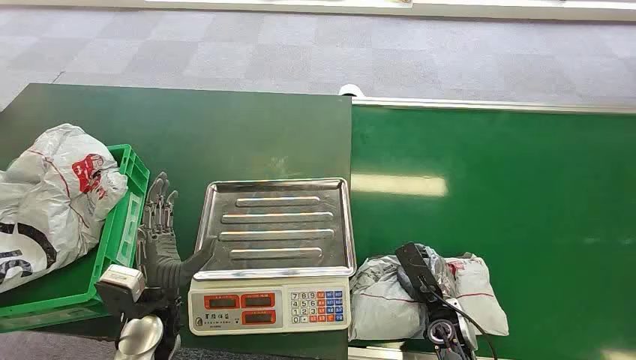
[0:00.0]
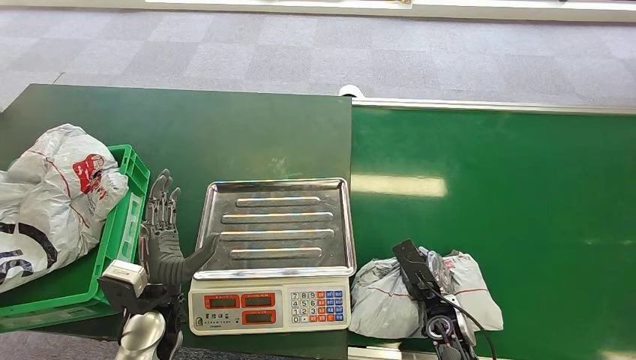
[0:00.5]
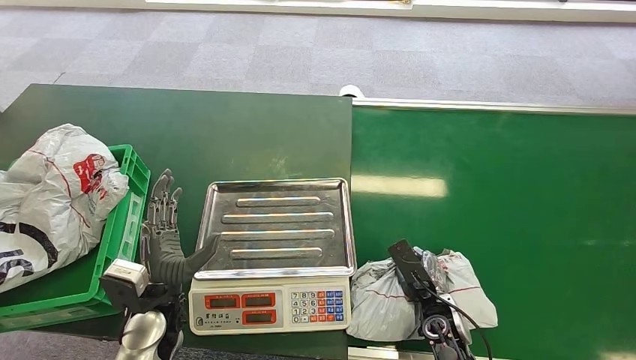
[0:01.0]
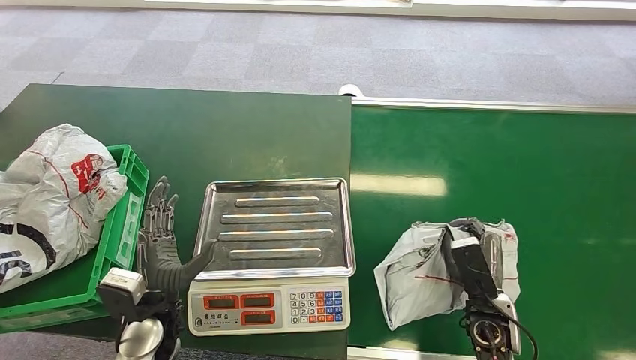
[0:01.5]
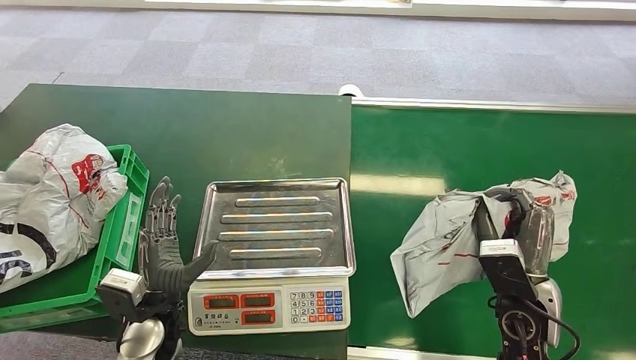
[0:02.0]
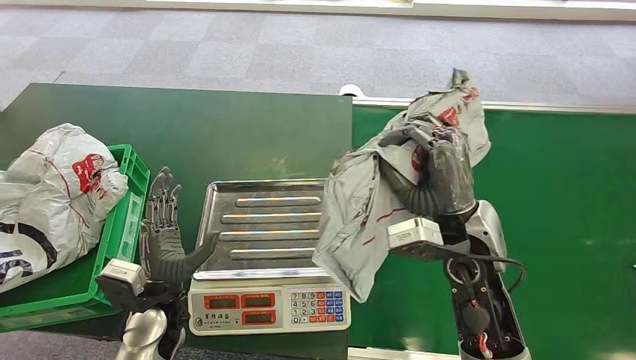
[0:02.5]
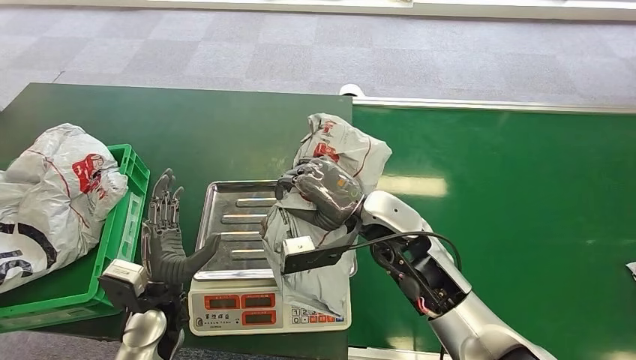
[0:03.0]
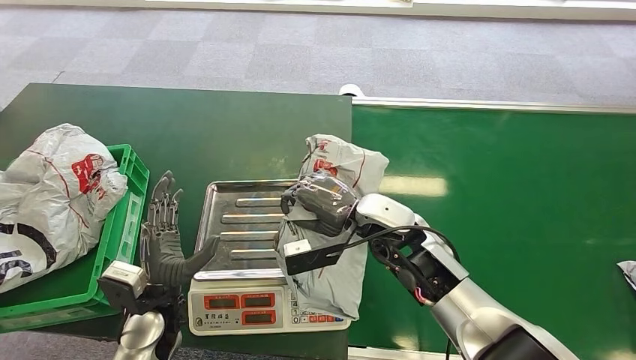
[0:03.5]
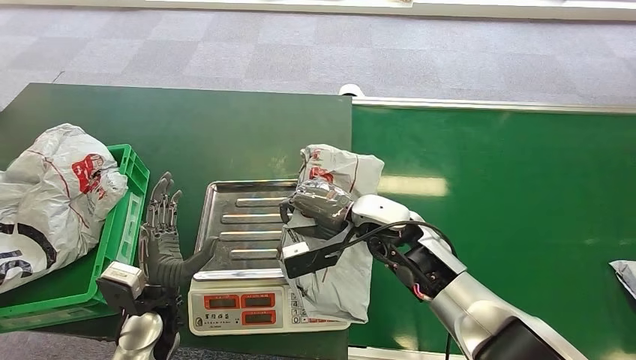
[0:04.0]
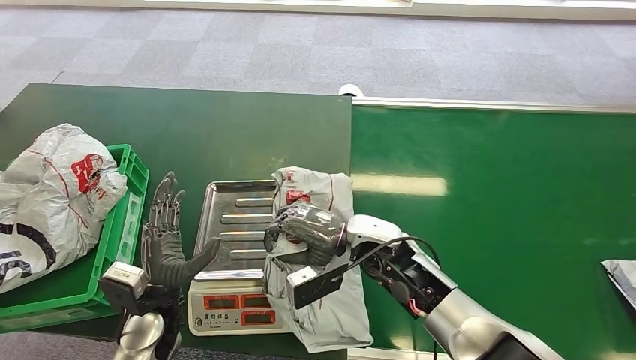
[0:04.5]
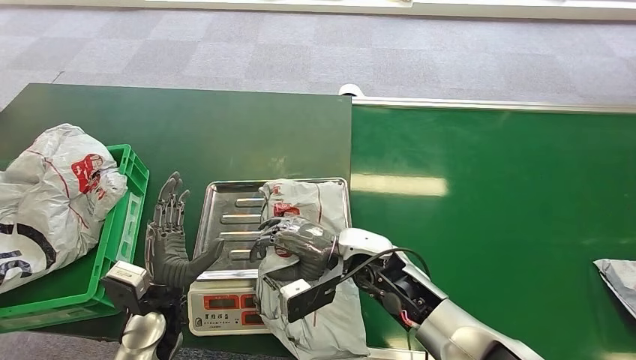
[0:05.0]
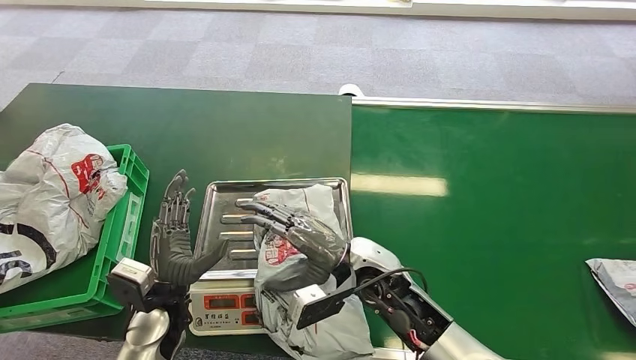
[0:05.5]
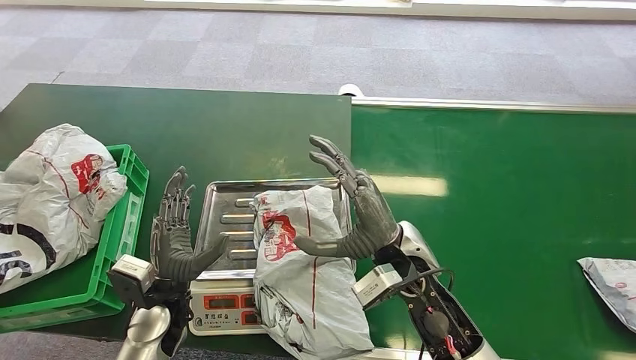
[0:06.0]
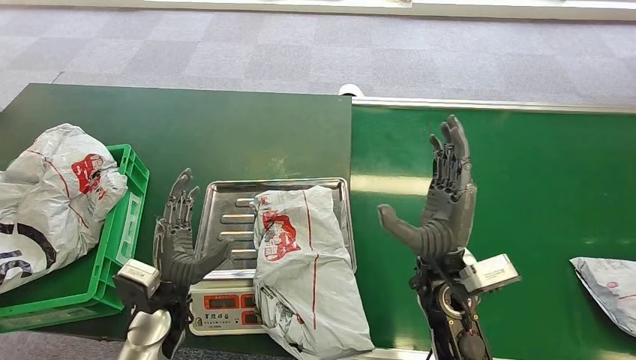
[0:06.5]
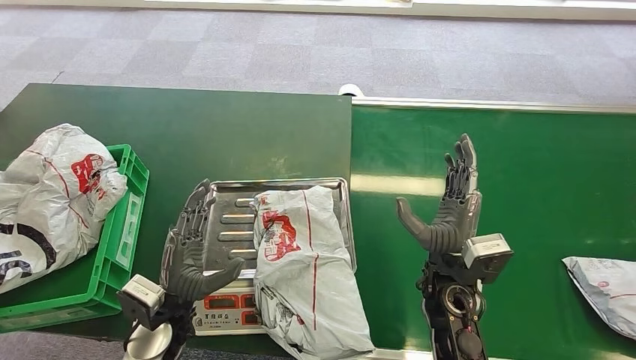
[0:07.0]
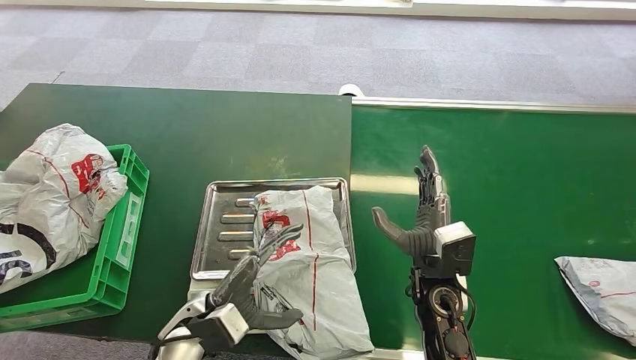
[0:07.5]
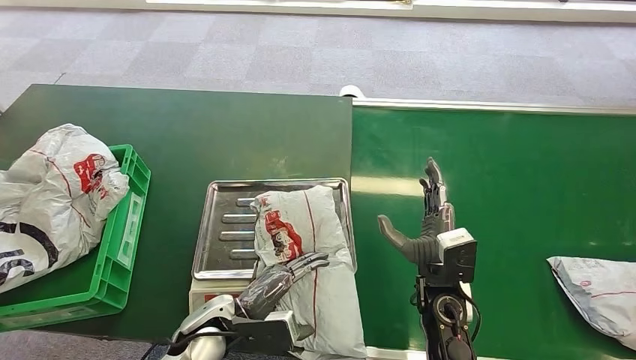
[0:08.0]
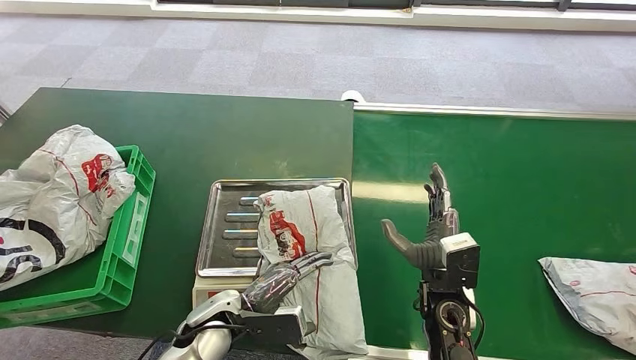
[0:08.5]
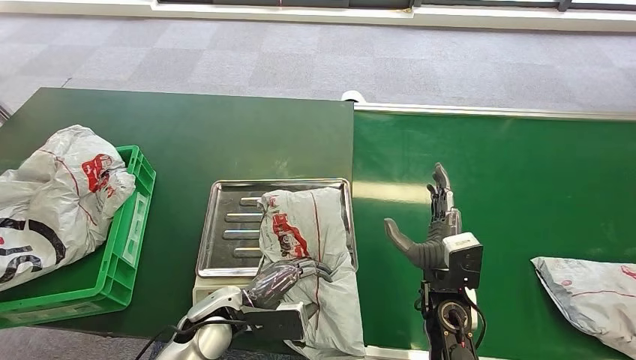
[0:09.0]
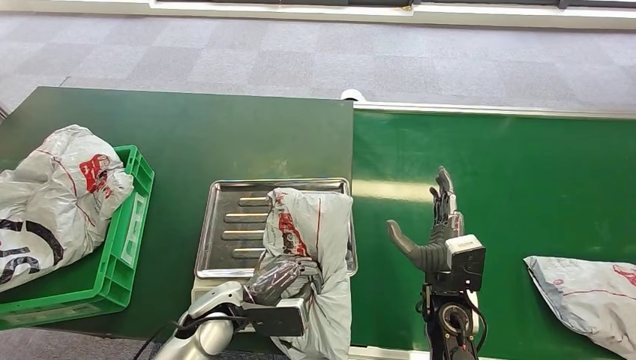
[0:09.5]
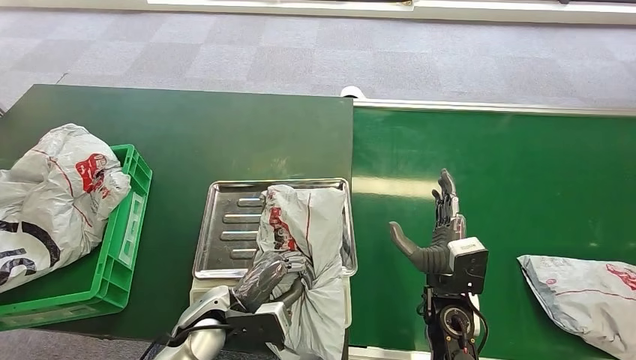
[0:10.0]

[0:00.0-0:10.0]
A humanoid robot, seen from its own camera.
Step, 0:00.0 to 0:01.5: Pick up the package from the conveyor belt.
Step, 0:02.5 to 0:04.5: Place the package onto the inbound machine.
0:02.0 to 0:04.0: The right hand goes approximately 20 cm to the left and forward.
0:04.0 to 0:06.0: The right hand is displaced backward by roughly 5 cm.
0:08.0 to 0:10.0: The hands stay close to where they were, moving slightly.

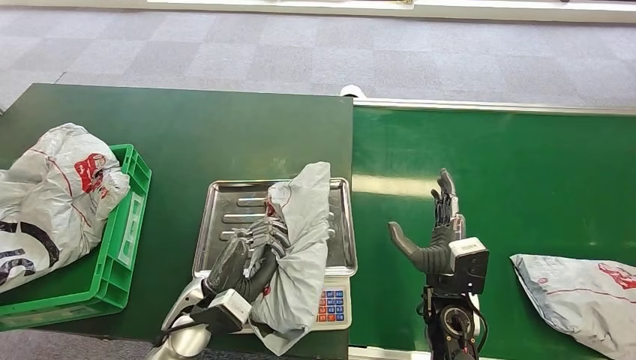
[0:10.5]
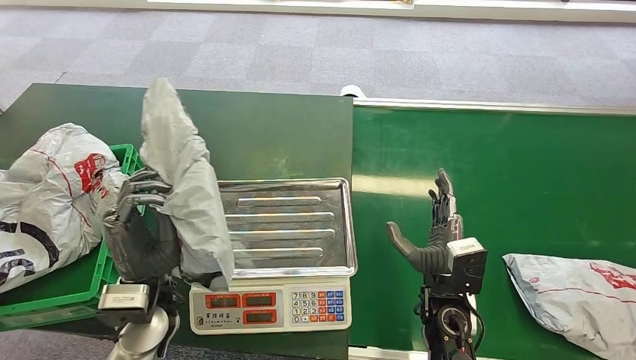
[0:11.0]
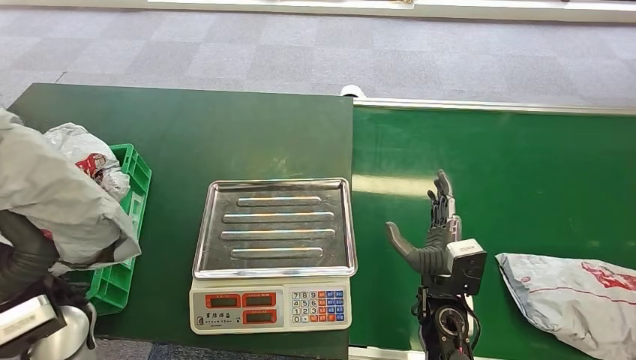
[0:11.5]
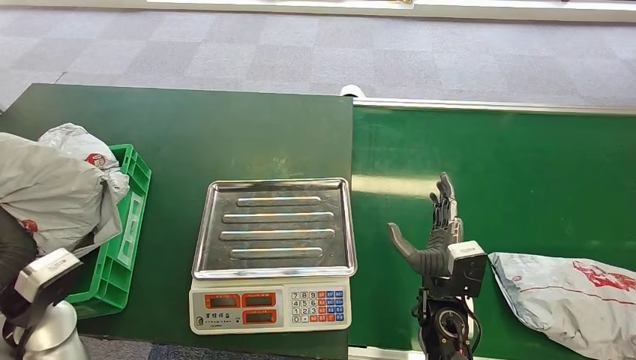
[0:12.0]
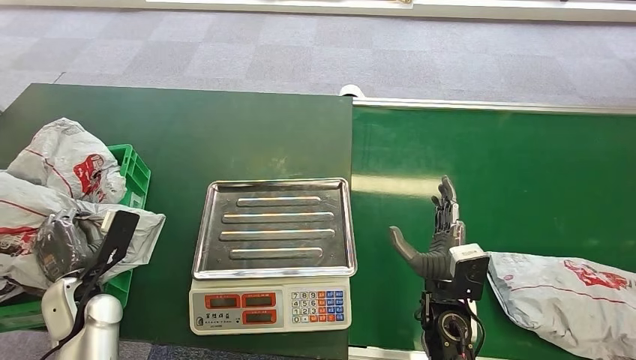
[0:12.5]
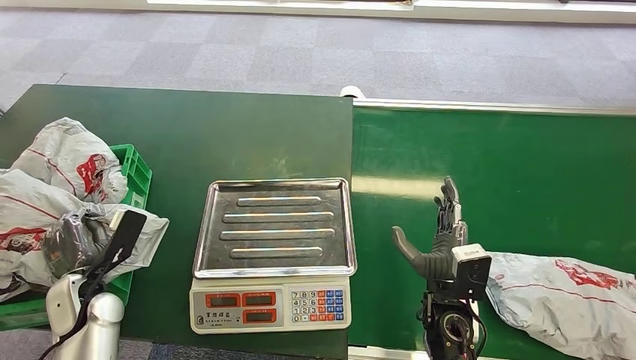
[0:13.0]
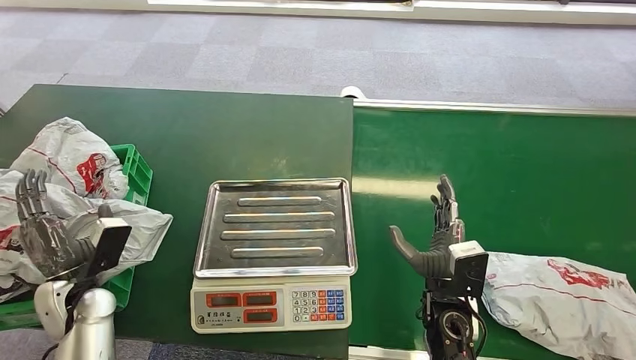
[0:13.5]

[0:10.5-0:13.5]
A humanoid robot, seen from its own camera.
Step, 0:11.5 to 0:13.5: Place the package into the parcel locker.
0:10.5 to 0:12.0: The left hand shifts approximately 20 cm to the left and upward.
0:12.0 to 0:13.5: The left hand moves downward, about 10 cm.
